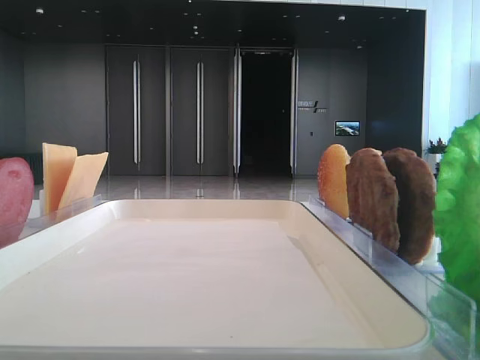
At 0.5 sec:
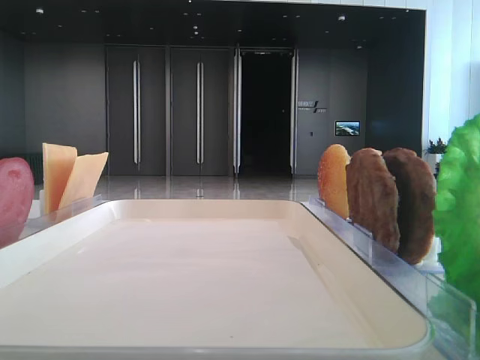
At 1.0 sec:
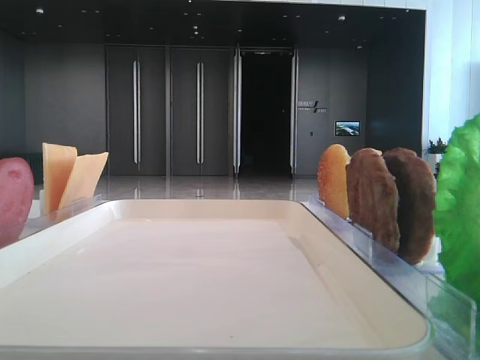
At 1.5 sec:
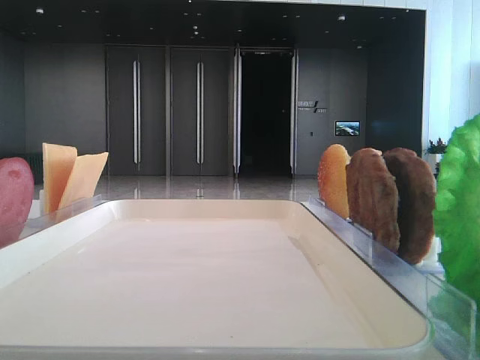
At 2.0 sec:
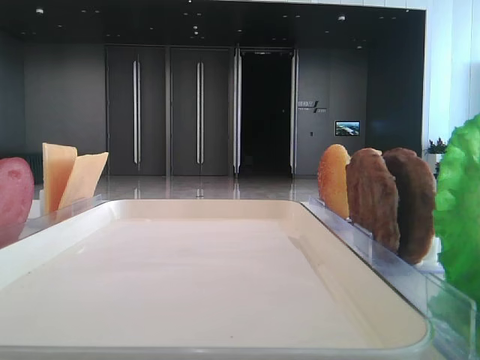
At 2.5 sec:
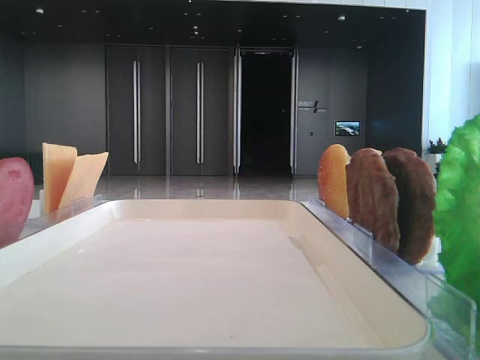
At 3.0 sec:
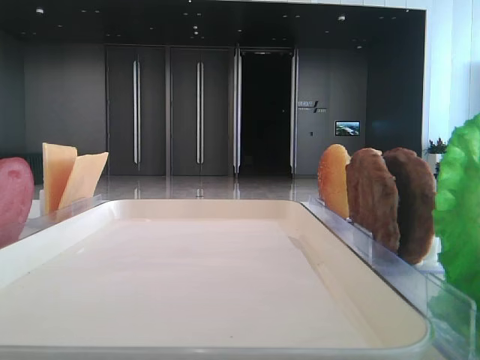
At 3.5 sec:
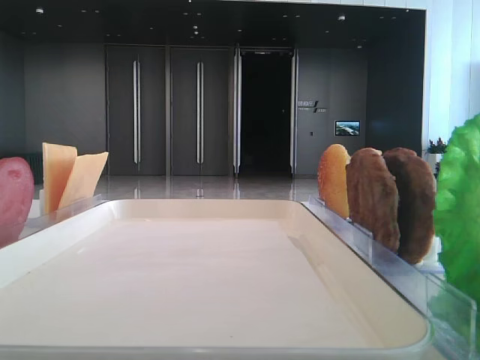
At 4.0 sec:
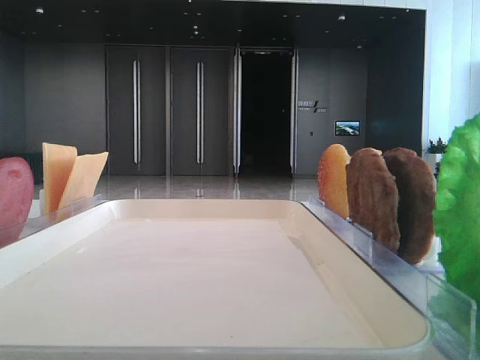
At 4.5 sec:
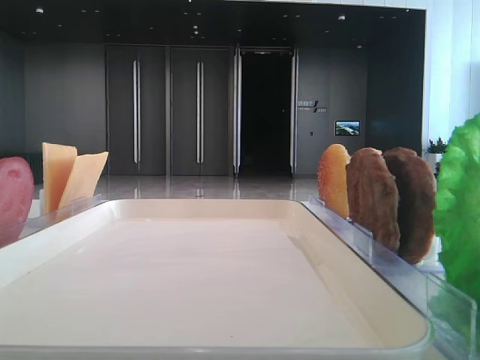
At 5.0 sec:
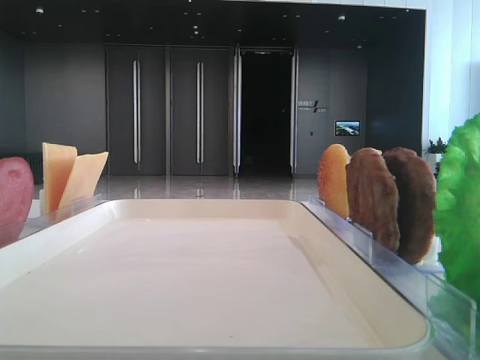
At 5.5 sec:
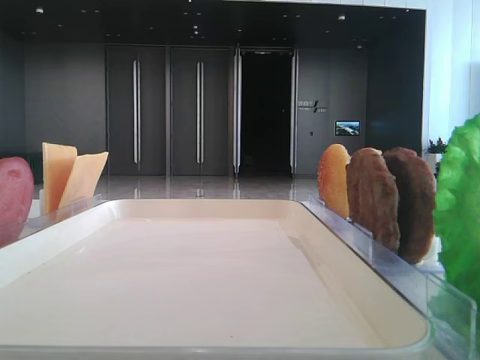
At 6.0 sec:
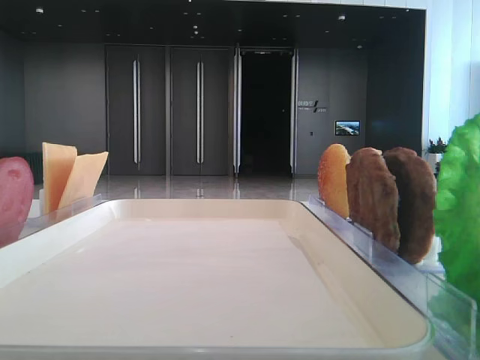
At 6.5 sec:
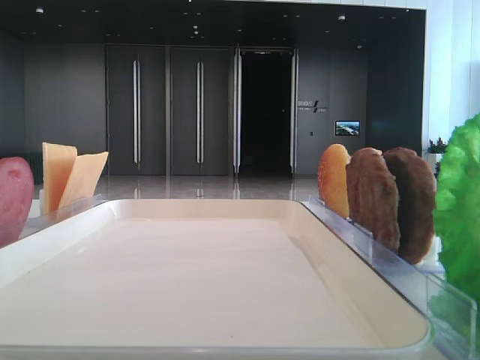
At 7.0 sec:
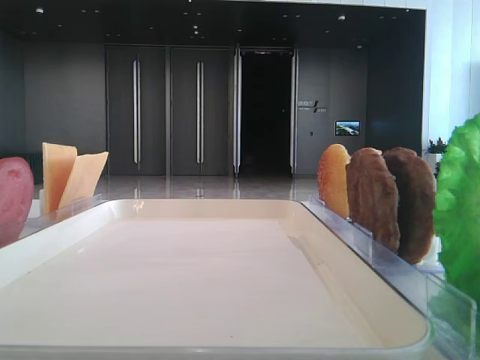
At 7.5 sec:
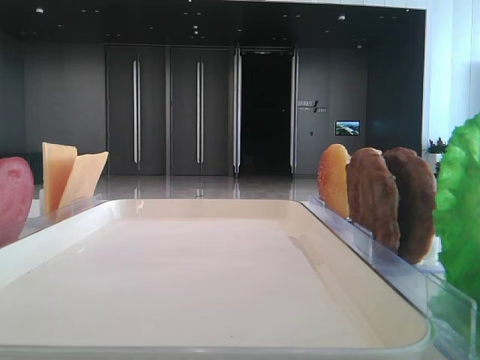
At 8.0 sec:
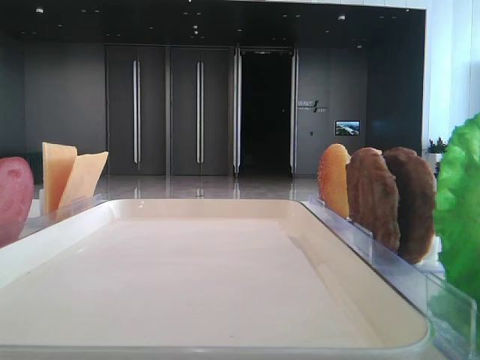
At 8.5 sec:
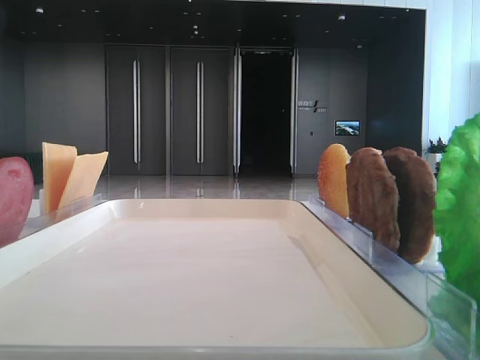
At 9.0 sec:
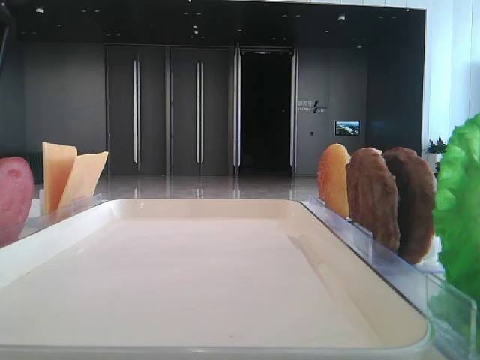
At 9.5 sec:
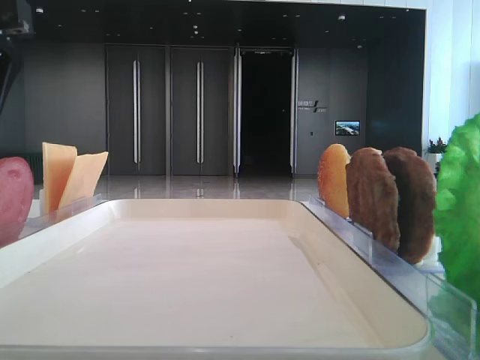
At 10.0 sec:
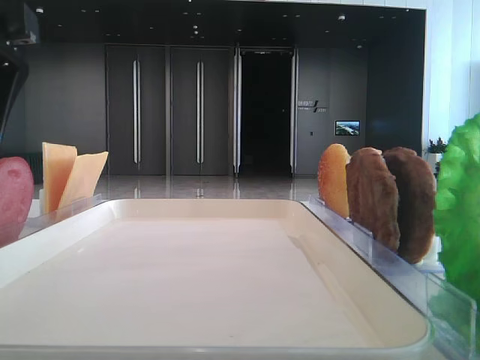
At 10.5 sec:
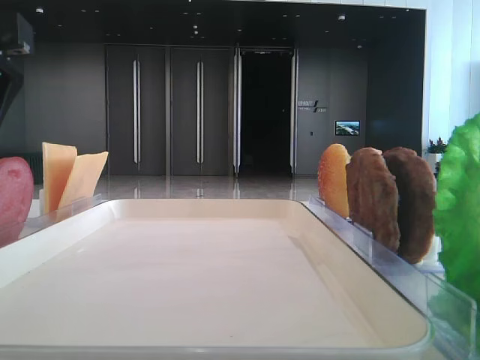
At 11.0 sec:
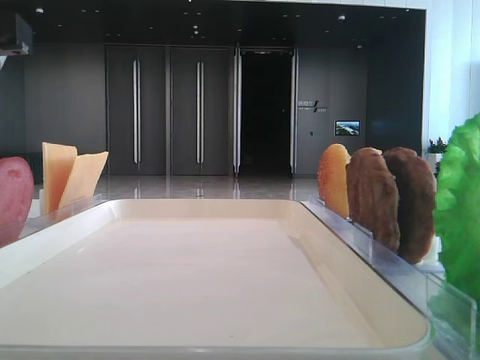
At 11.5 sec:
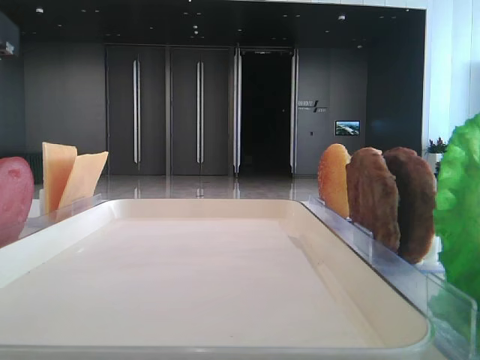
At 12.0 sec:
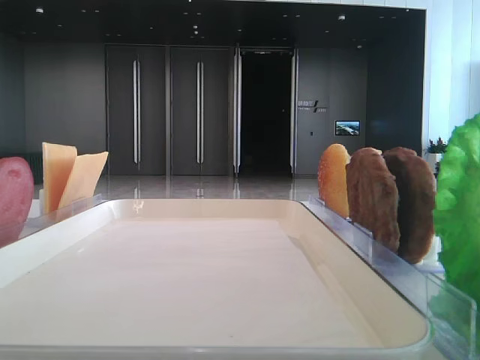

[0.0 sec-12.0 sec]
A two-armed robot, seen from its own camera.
10.0 sec to 12.0 sec: The left gripper closes up.

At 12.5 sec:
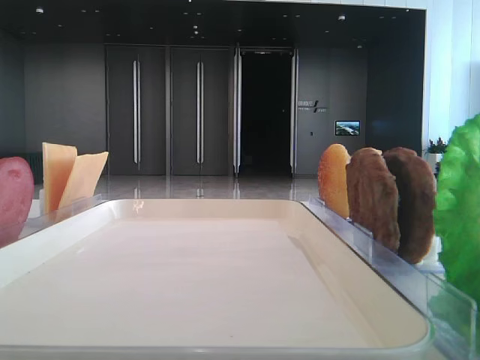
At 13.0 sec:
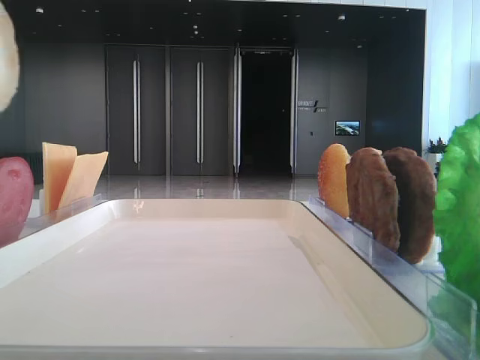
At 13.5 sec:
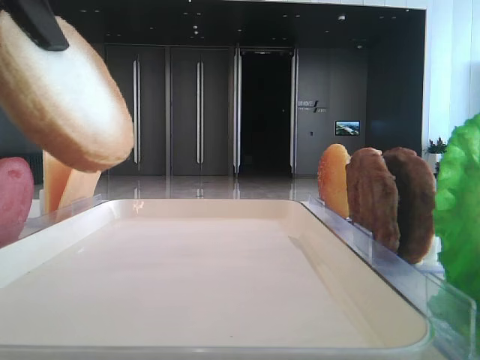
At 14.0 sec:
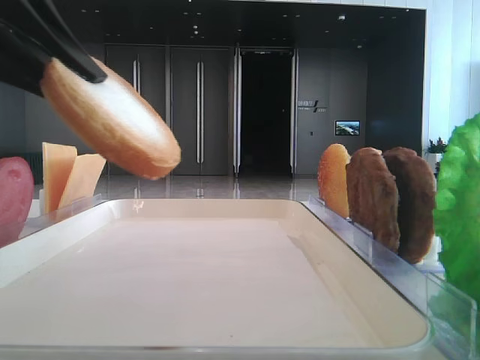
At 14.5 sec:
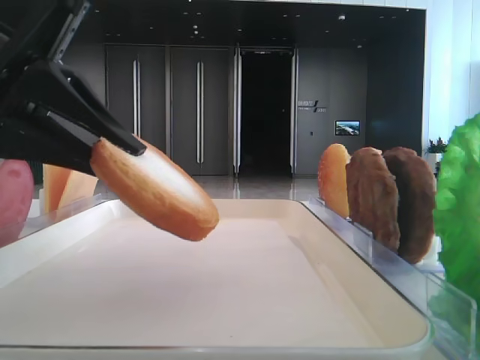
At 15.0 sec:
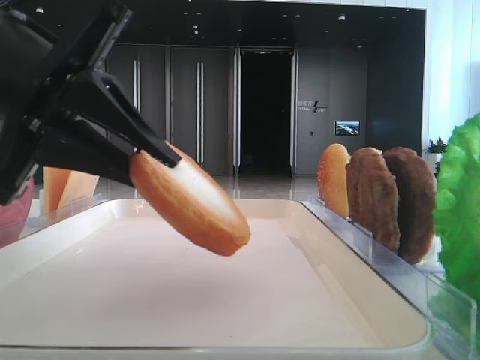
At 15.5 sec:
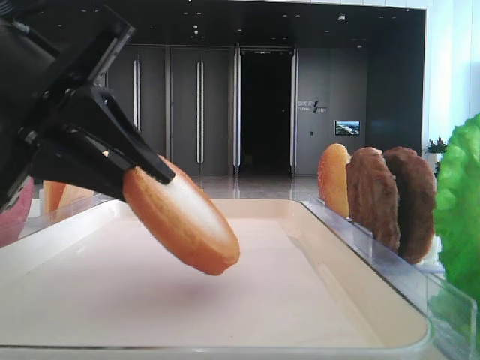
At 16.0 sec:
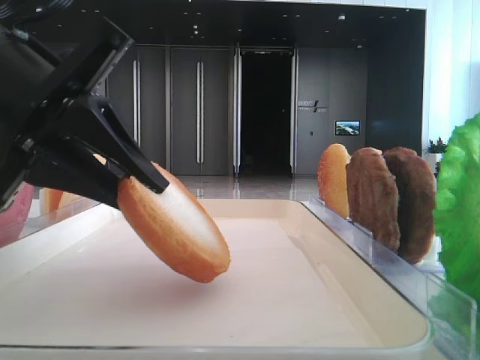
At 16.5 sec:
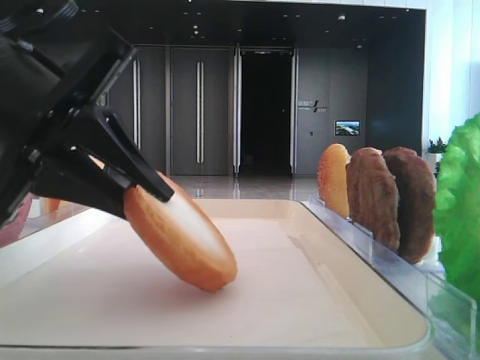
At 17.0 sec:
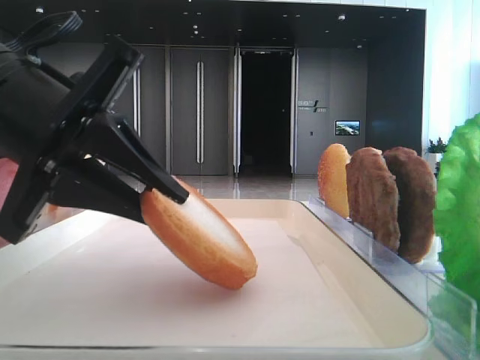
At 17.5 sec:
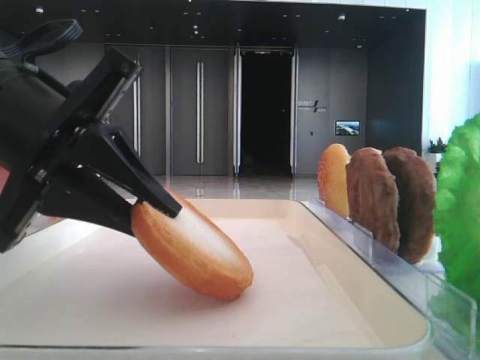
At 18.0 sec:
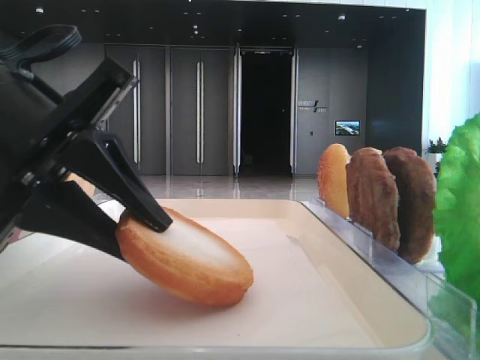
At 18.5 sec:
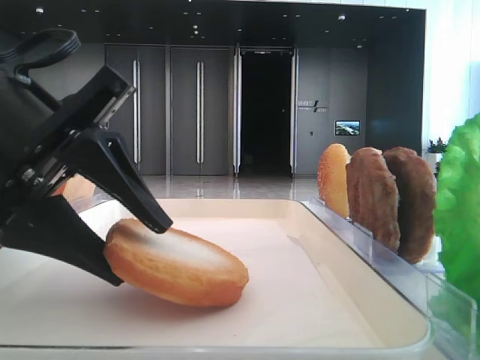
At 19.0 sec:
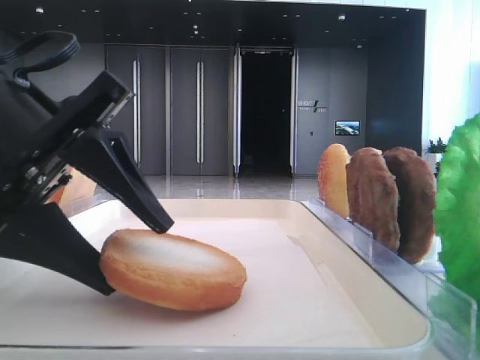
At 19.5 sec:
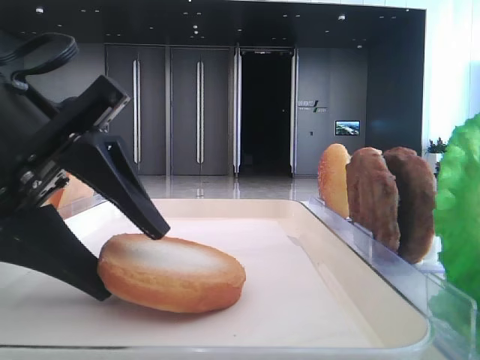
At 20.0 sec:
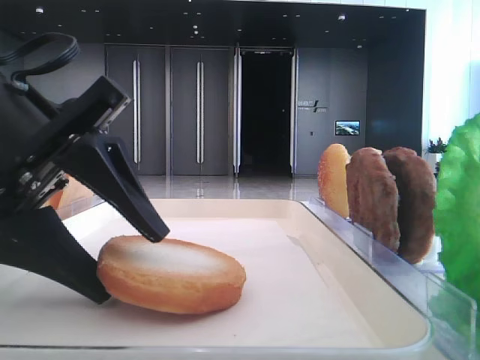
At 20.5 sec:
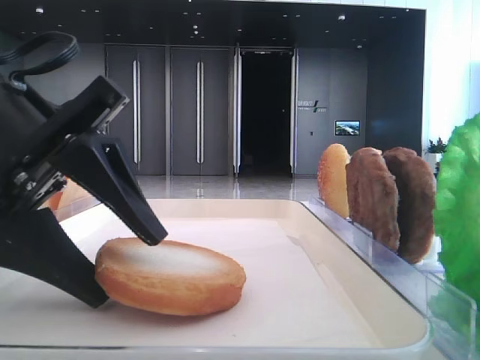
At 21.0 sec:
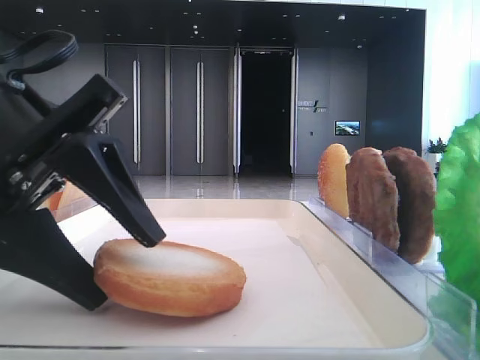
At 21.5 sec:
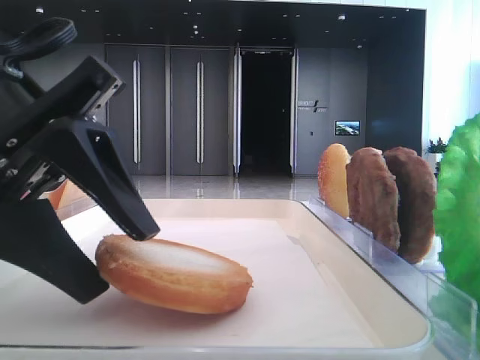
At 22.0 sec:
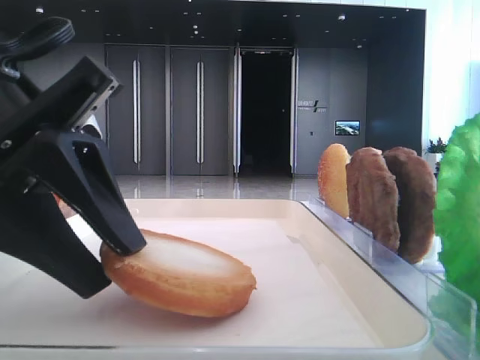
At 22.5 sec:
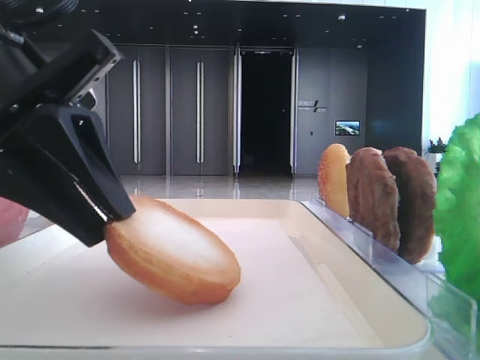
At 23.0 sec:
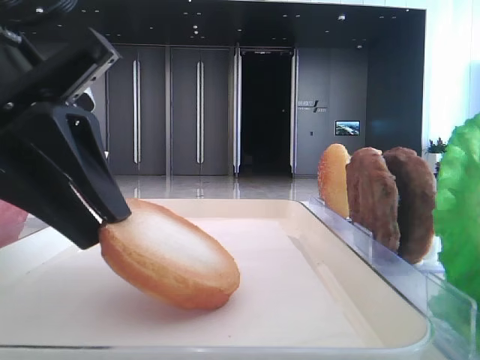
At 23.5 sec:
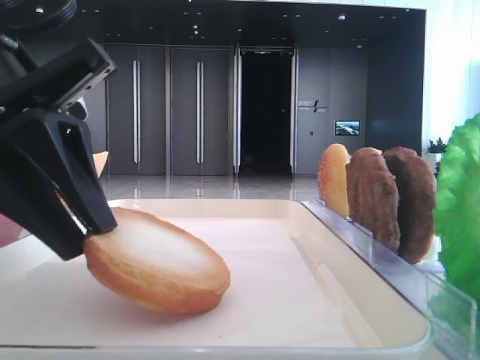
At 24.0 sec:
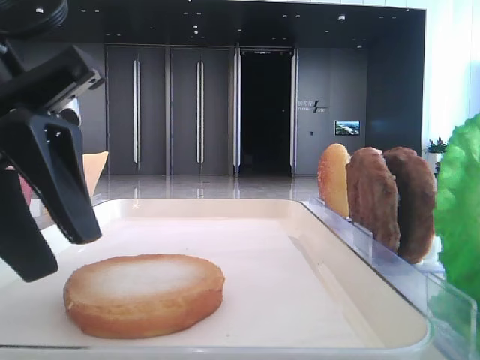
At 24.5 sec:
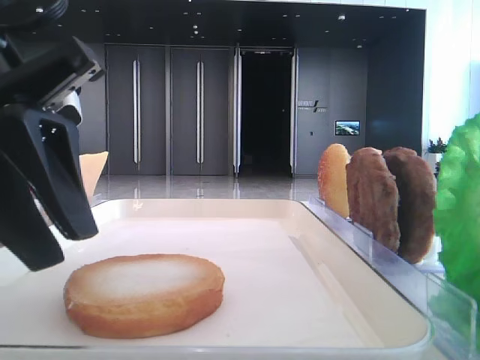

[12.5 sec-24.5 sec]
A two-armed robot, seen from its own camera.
Step, 12.5 sec to 23.5 sec: Place the bread on the tray with the left hand.
12.5 sec to 14.5 sec: The left gripper shifts some 15 cm downward.
14.5 sec to 18.5 sec: The grippers stay close to where they were, moving slightly.
18.5 sec to 20.5 sec: Neither gripper changes place.
20.5 sec to 22.5 sec: The left gripper closes.
22.5 sec to 24.5 sec: There are only small adjustments of the grippers.

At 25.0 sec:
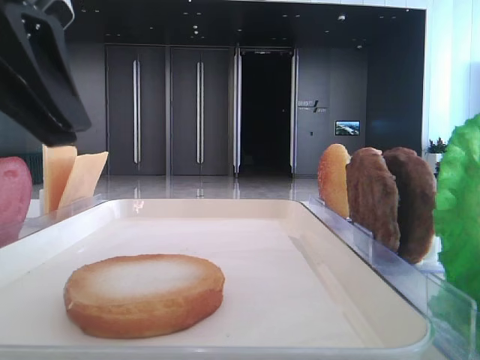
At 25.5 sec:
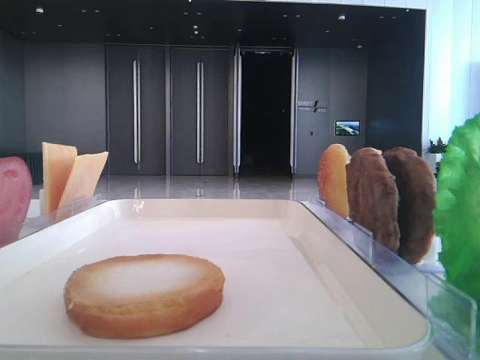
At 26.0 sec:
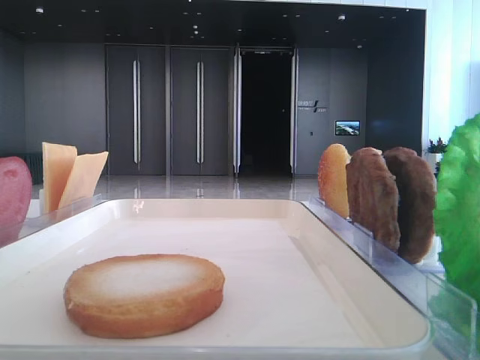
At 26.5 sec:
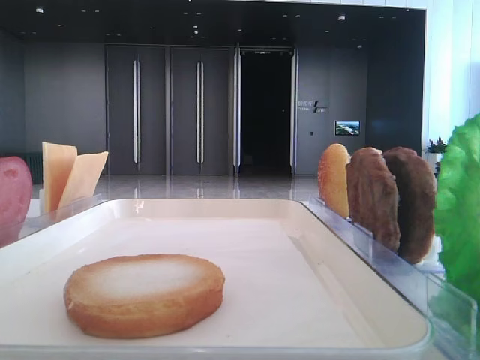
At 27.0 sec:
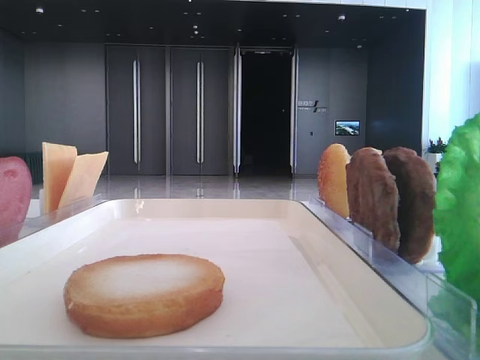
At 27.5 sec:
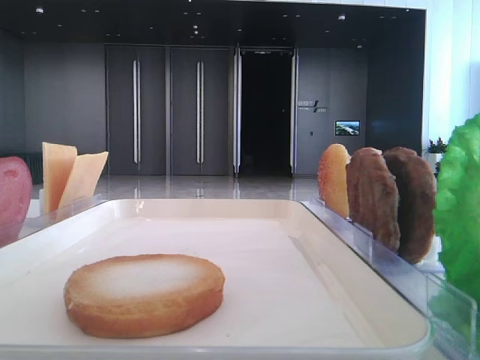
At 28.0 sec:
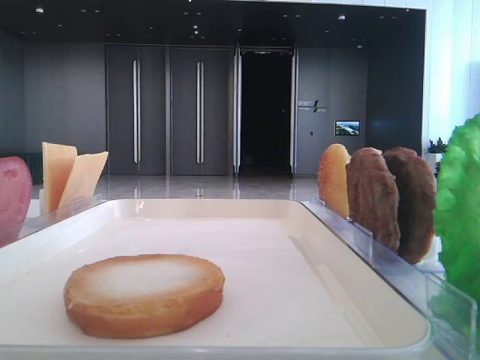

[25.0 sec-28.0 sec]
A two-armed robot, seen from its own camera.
25.0 sec to 26.5 sec: The left gripper moves to the left and upward, some 20 cm.
